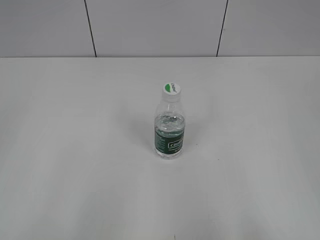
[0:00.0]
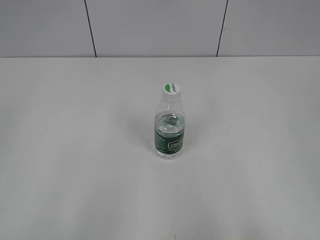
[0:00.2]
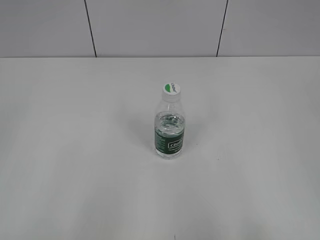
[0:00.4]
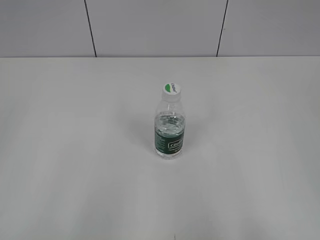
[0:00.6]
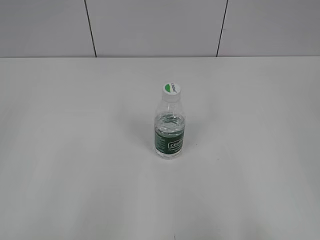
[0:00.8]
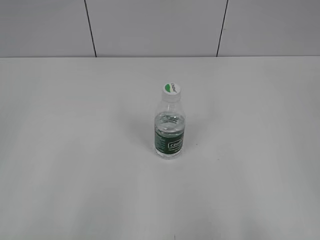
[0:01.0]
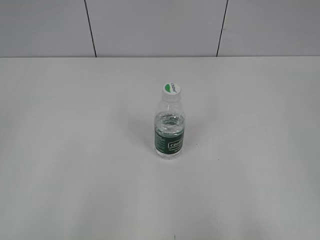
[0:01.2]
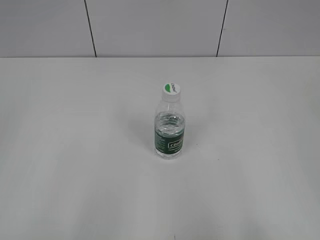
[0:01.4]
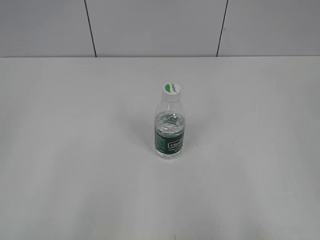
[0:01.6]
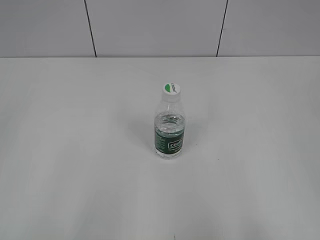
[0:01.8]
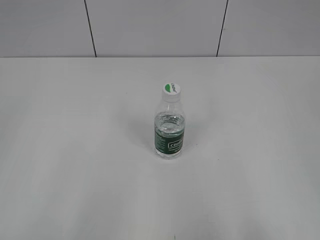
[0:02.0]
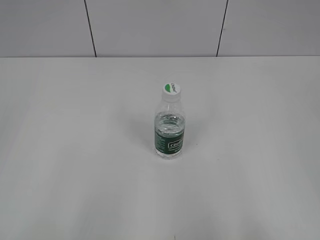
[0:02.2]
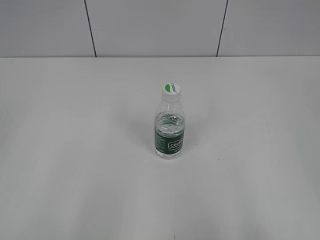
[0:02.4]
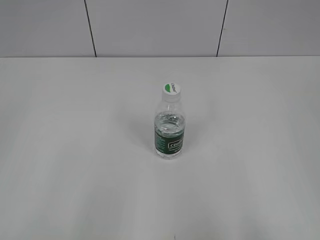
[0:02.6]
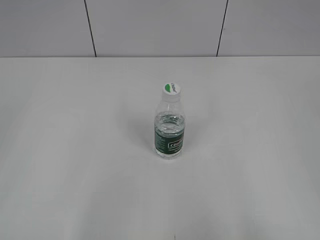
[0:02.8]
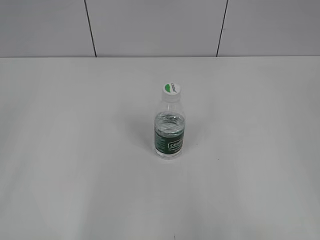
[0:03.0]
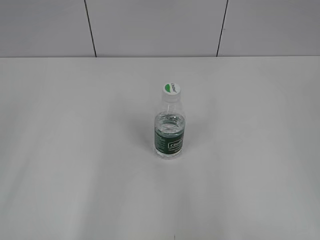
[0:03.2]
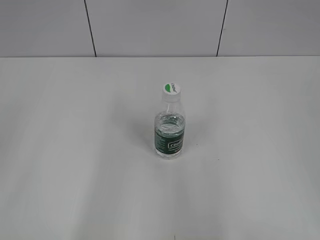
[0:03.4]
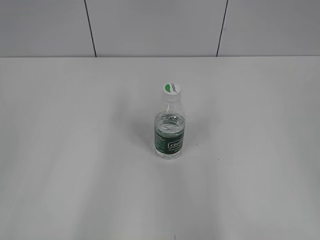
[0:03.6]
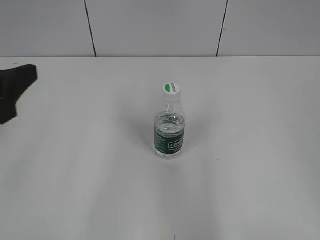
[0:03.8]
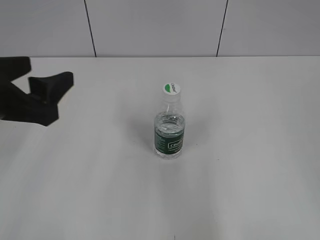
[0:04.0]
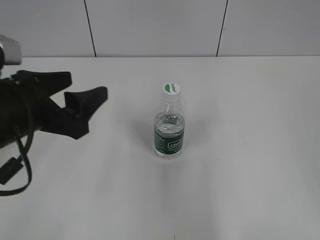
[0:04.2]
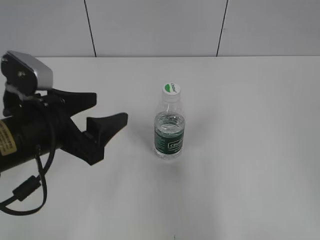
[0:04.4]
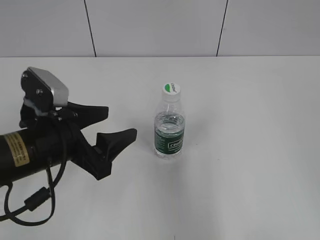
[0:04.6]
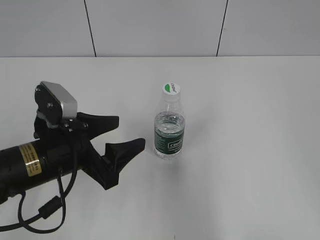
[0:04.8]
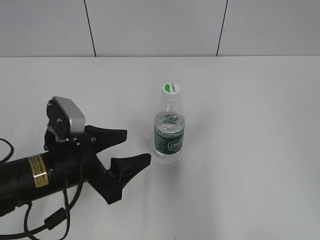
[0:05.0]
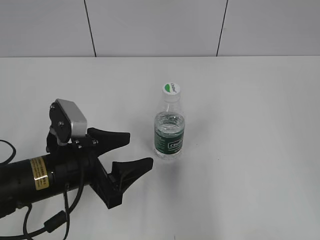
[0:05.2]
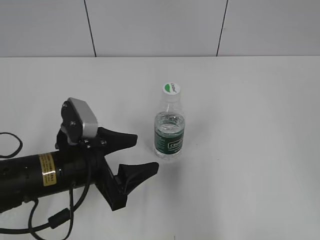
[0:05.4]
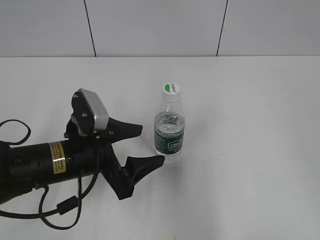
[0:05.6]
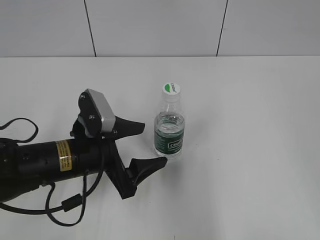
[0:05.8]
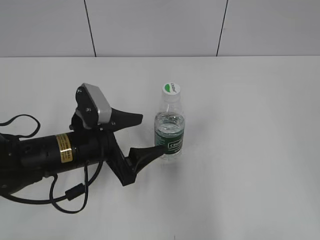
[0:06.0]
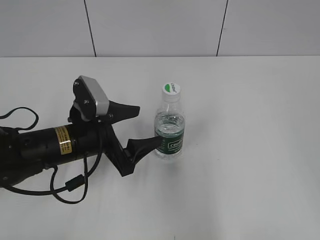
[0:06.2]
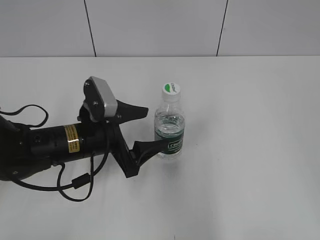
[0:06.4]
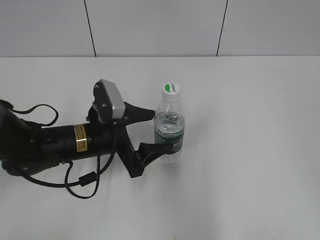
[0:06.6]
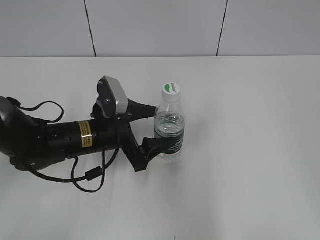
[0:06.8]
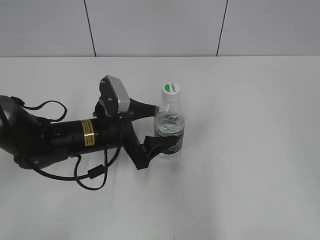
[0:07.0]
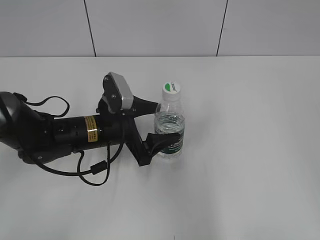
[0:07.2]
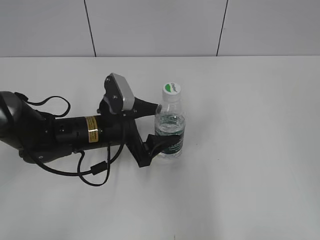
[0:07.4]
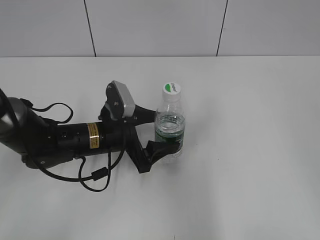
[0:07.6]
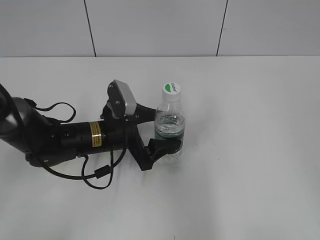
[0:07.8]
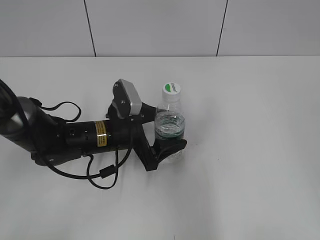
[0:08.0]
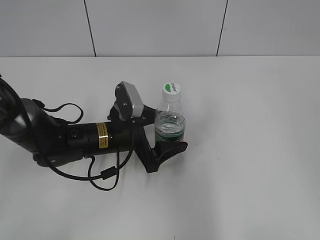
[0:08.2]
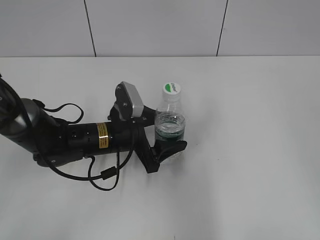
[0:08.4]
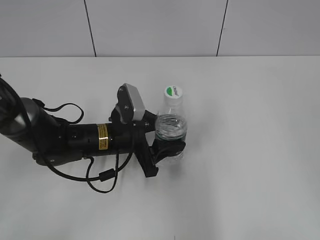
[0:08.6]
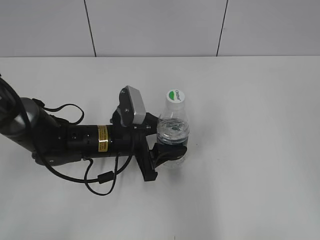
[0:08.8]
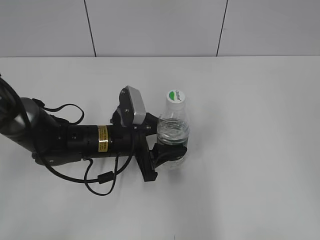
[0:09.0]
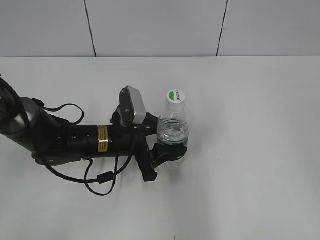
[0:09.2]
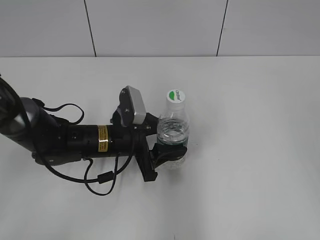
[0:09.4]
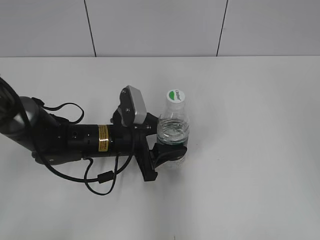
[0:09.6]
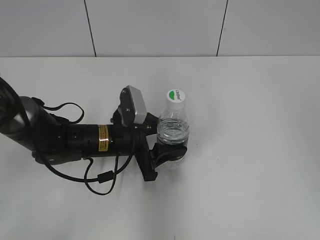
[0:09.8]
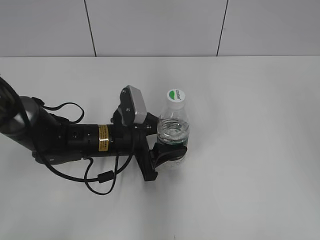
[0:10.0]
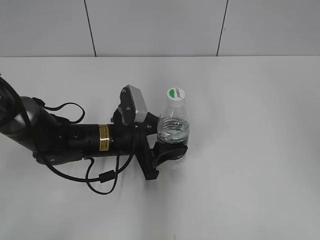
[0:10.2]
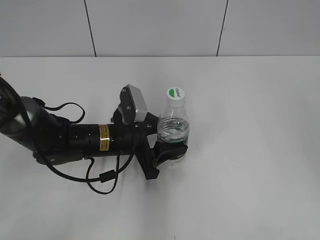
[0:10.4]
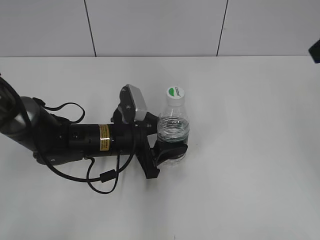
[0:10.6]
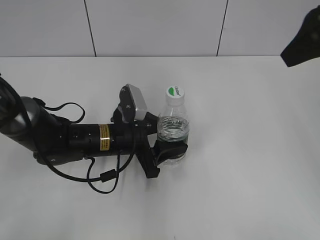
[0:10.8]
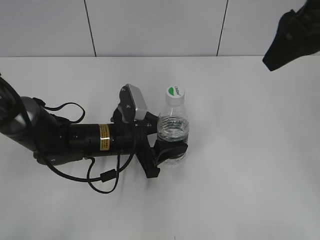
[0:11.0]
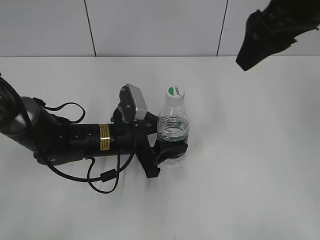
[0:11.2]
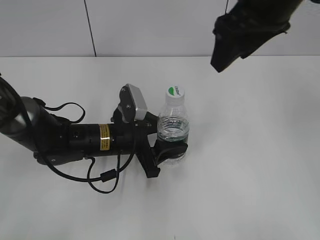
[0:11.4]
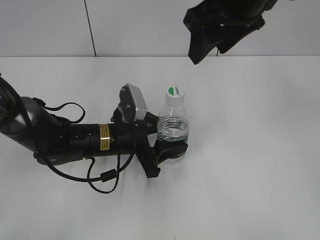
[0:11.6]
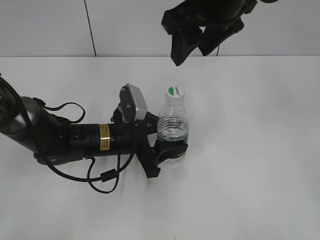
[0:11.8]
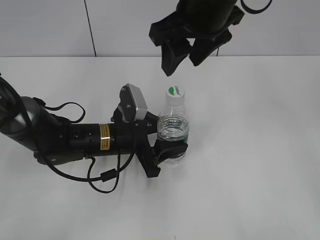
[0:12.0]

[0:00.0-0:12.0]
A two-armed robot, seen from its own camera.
Step, 0:00.0 to 0:09.8: Grasp the bottle and move it to the center of the table with the left gripper.
0:03.0 to 0:04.4: The right gripper moves about 5 cm. The left gripper is displaced forward, to the right and downward by about 25 cm.
0:04.4 to 0:06.0: The left gripper is displaced downward by roughly 10 cm, and opens.
0:06.0 to 0:07.6: The left gripper shifts about 5 cm forward.
0:07.6 to 0:09.0: The left gripper closes up.
0:09.0 to 0:10.4: The right gripper travels forward by about 15 cm.
0:10.4 to 0:12.0: The right gripper moves to the left and forward, some 25 cm.

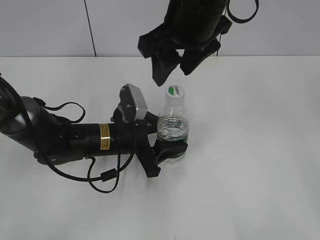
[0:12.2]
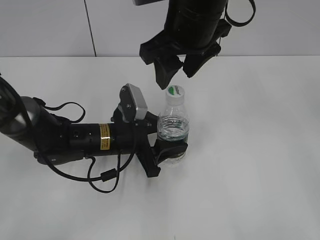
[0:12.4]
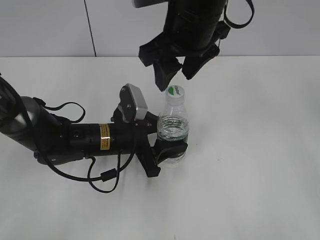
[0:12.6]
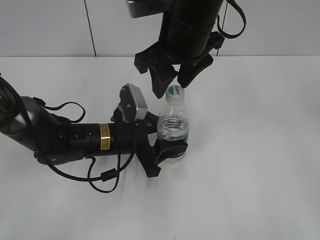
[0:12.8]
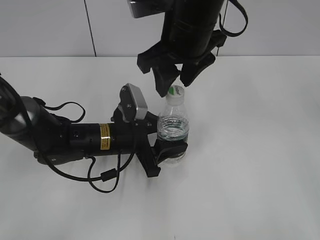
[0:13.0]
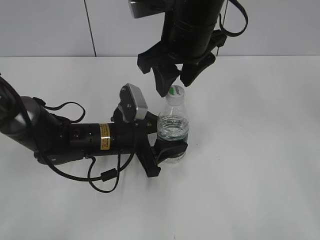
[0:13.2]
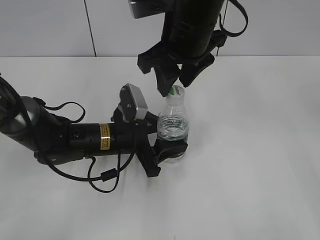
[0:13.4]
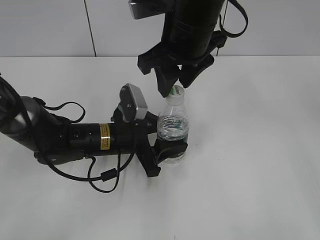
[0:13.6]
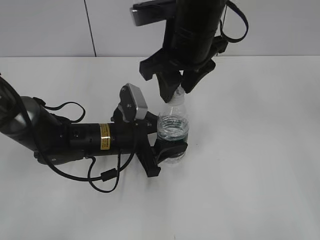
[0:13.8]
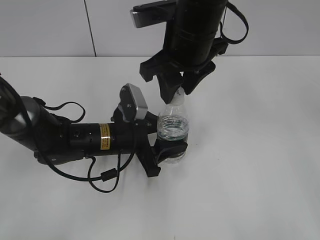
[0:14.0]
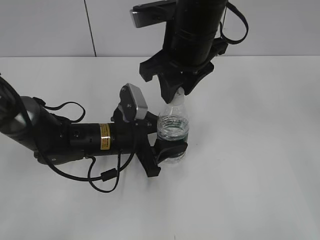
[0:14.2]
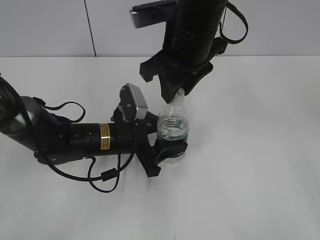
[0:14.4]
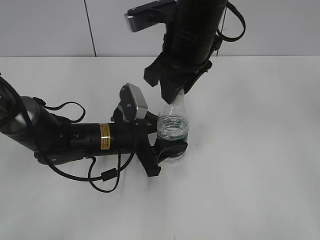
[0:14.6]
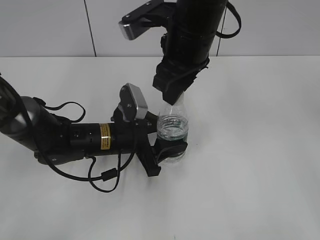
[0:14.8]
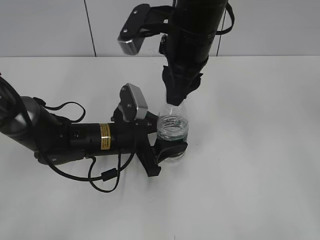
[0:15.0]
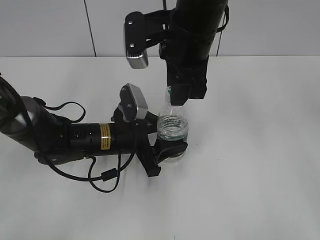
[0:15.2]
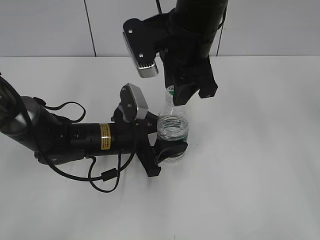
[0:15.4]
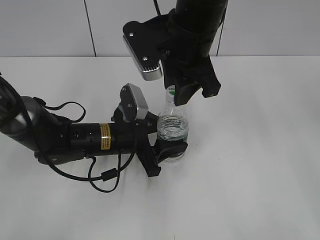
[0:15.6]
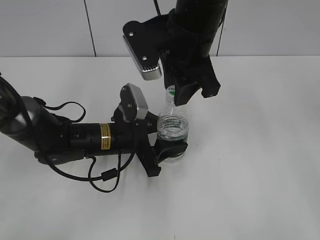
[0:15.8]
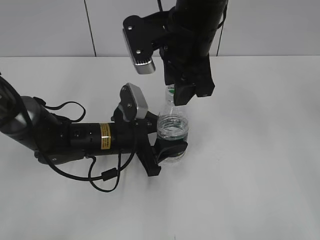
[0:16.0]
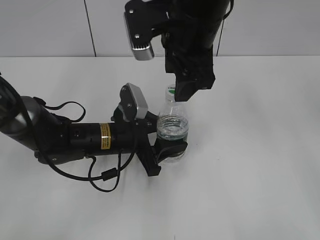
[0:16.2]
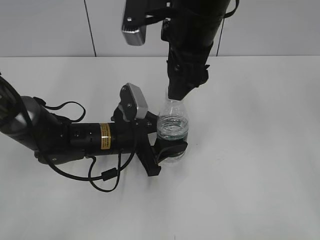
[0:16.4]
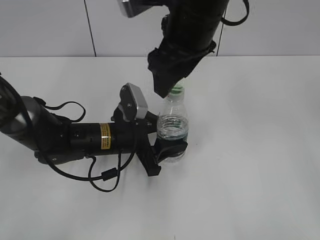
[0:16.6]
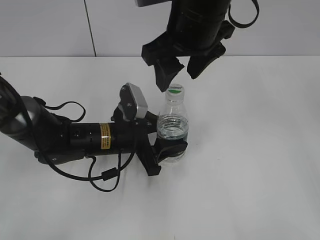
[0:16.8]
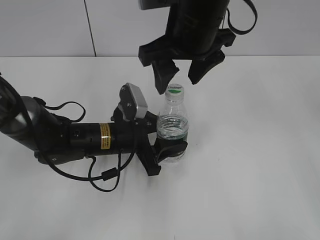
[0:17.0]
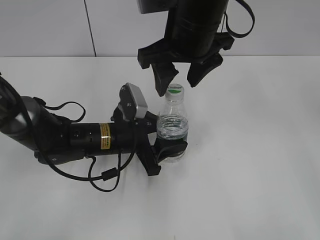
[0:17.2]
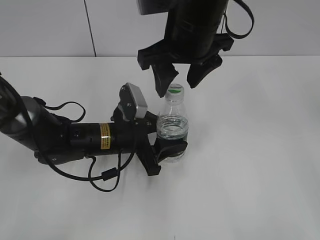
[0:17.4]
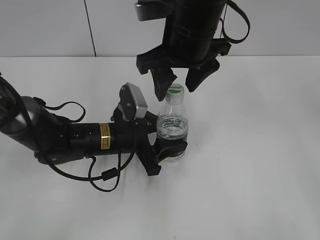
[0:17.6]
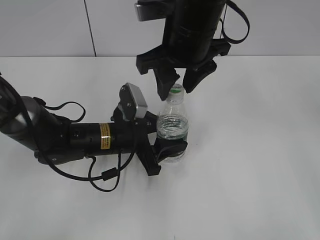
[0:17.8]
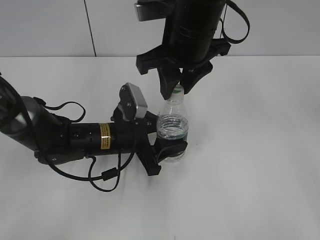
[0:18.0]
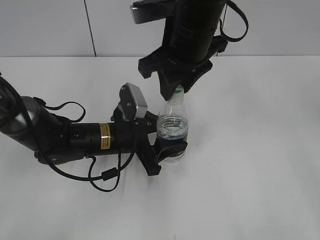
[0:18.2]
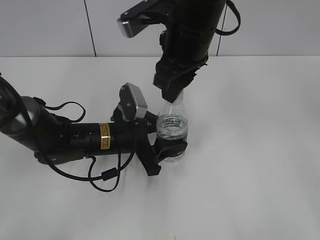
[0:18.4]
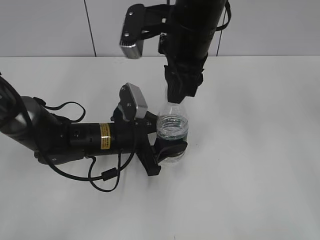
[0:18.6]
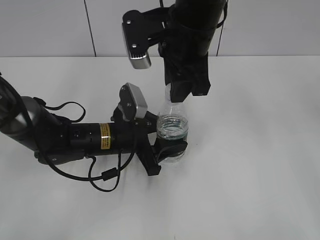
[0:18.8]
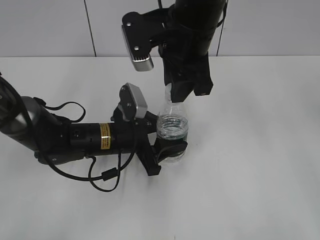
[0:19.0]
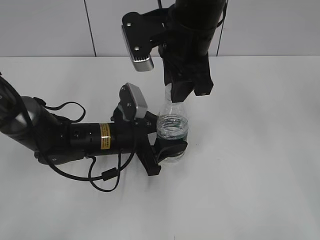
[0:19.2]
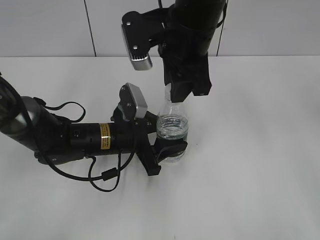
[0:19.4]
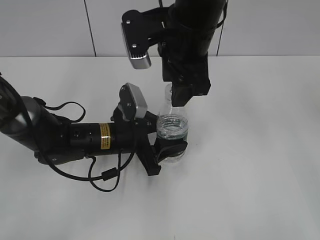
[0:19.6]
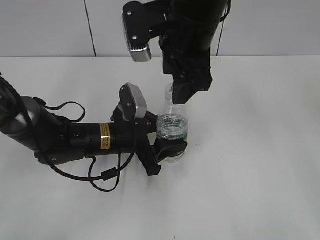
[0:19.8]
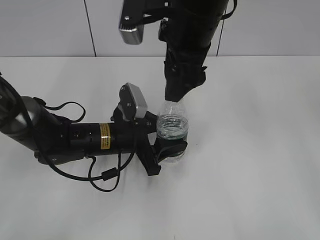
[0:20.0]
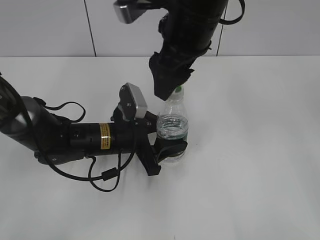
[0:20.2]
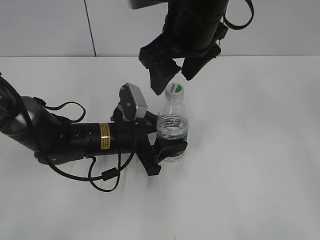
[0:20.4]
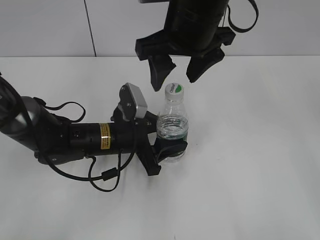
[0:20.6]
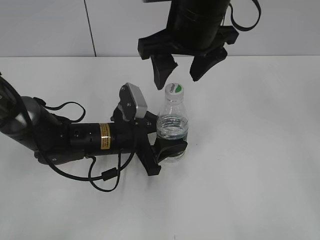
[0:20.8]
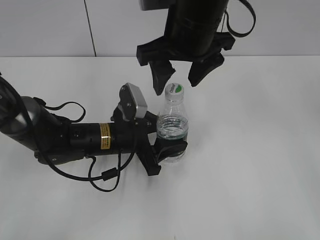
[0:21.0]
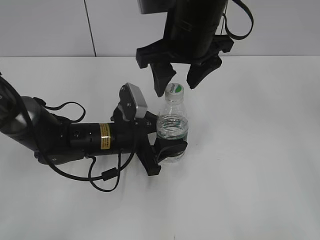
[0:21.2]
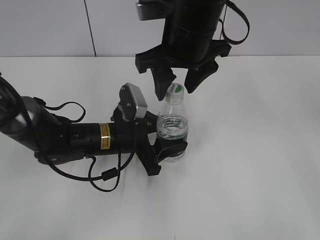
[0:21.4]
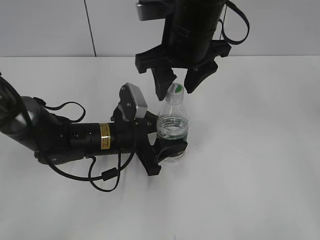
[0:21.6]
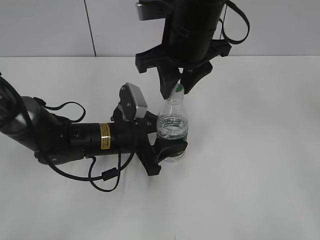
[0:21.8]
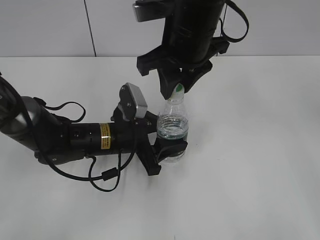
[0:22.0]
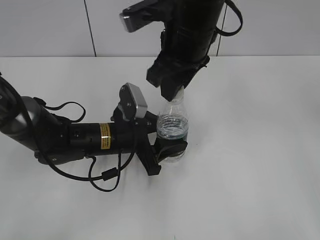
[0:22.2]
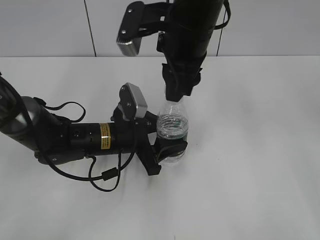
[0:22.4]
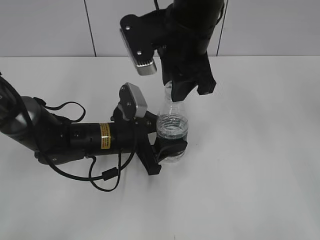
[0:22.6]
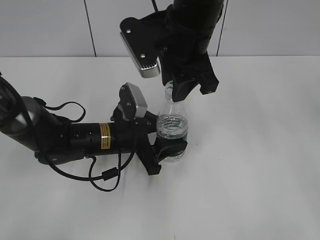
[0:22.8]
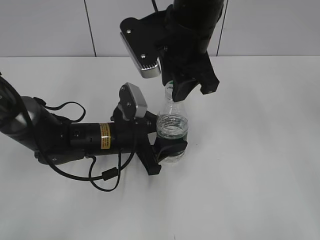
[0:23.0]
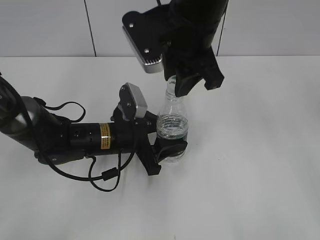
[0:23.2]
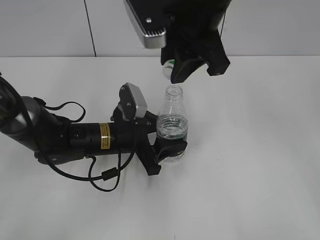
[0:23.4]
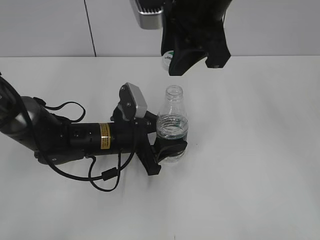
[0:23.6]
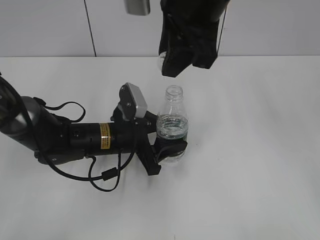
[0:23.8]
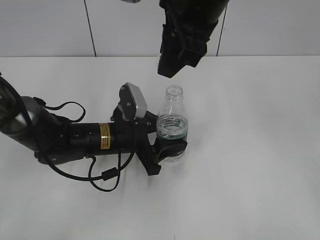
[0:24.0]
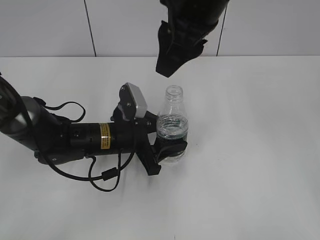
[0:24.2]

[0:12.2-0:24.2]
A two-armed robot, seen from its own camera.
Step, 0:12.2 to 0:23.6: Unscrew the bottle cap with the right gripper while holding the bottle with the left gripper.
0:12.2 to 0:13.8: The grippers move only a little.
0:15.2 to 0:16.6: The right gripper opens.
0:16.6 to 0:18.2: The right gripper closes its fingers.
0:18.2 to 0:19.8: The right gripper opens up.
0:21.2 to 0:22.6: The right gripper closes.
0:22.6 to 0:24.2: The right gripper heads upward, covering roughly 5 cm.
